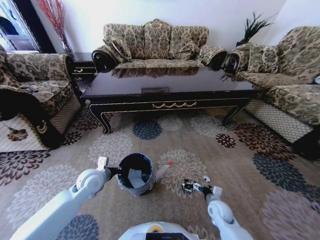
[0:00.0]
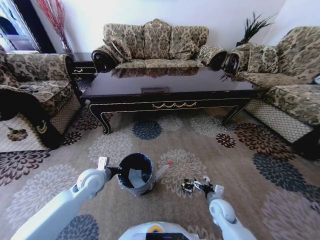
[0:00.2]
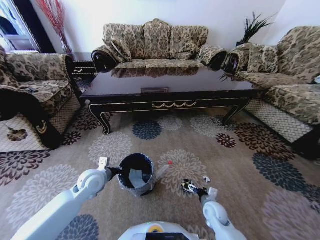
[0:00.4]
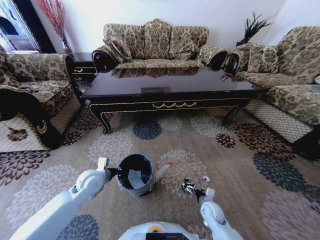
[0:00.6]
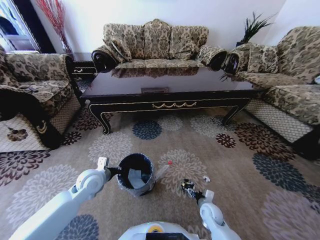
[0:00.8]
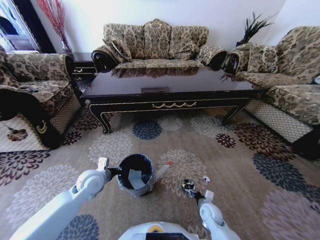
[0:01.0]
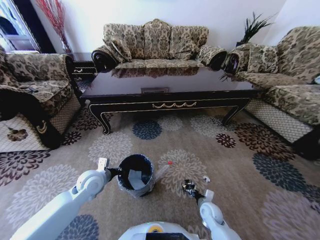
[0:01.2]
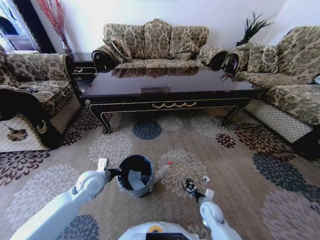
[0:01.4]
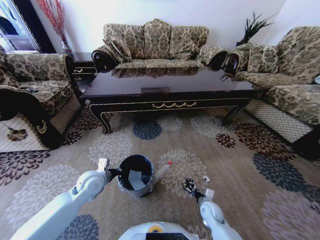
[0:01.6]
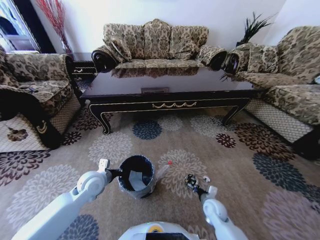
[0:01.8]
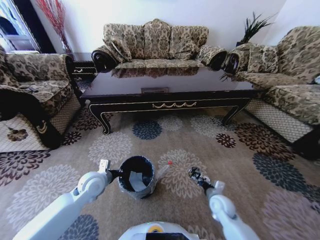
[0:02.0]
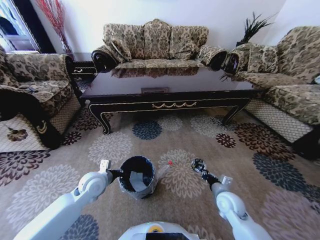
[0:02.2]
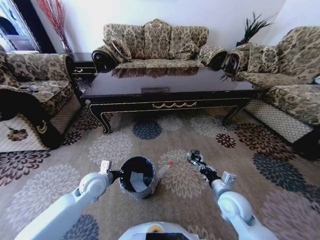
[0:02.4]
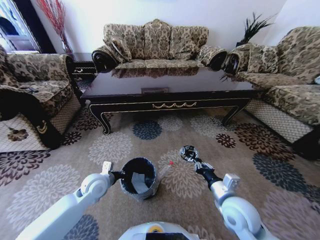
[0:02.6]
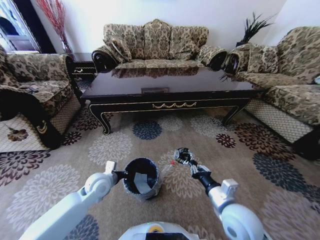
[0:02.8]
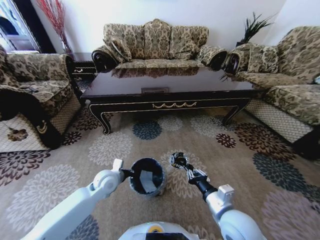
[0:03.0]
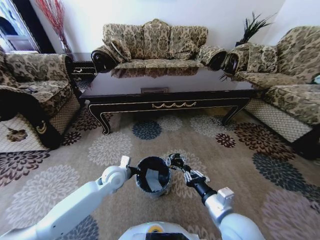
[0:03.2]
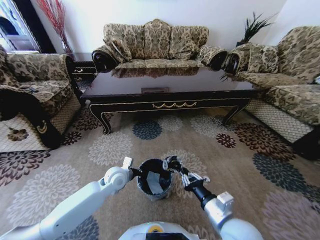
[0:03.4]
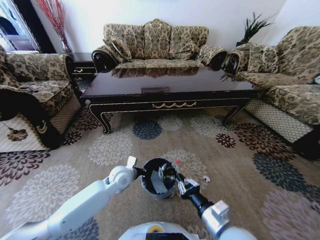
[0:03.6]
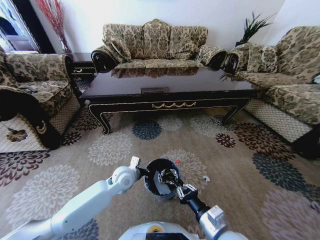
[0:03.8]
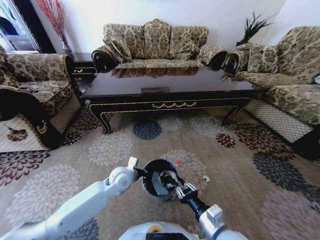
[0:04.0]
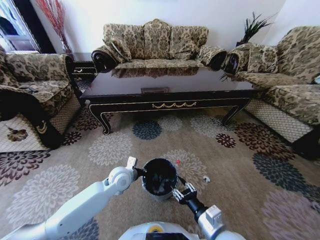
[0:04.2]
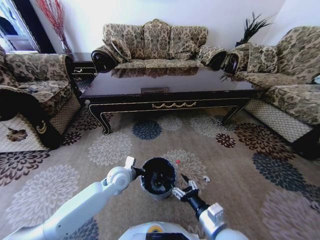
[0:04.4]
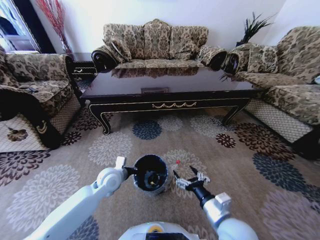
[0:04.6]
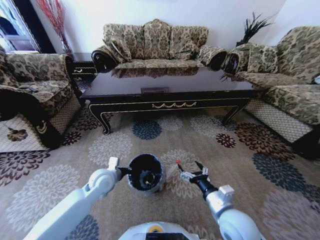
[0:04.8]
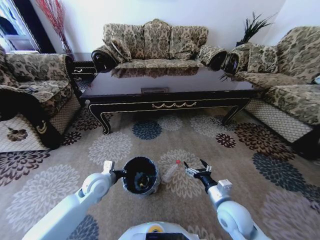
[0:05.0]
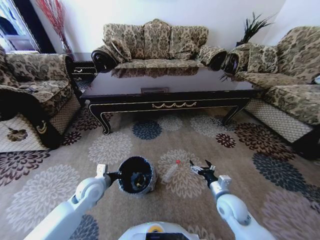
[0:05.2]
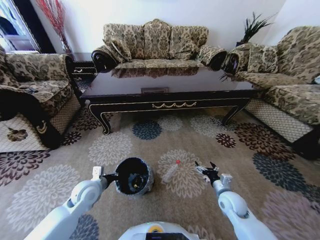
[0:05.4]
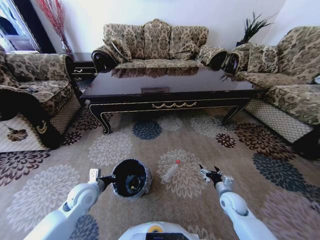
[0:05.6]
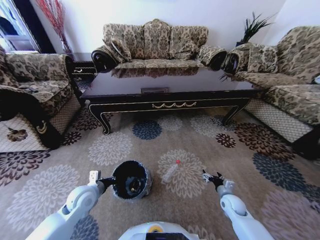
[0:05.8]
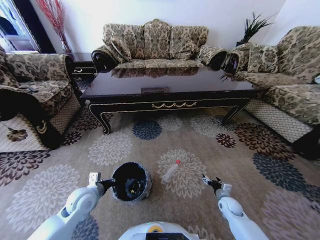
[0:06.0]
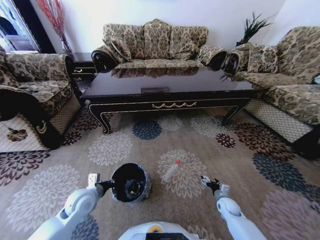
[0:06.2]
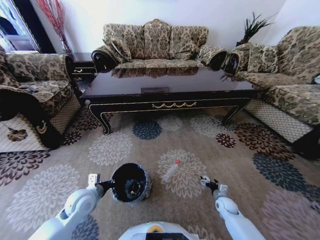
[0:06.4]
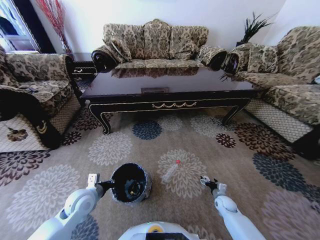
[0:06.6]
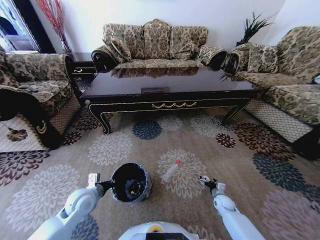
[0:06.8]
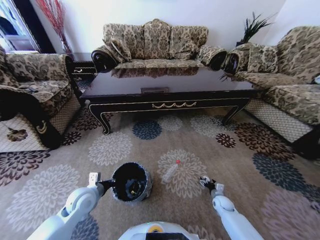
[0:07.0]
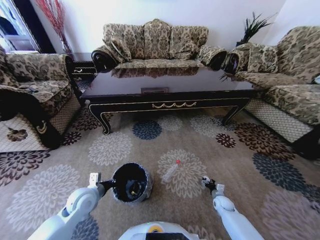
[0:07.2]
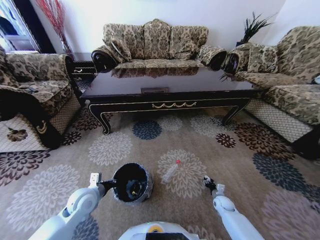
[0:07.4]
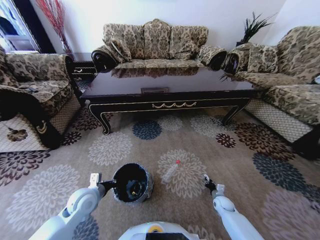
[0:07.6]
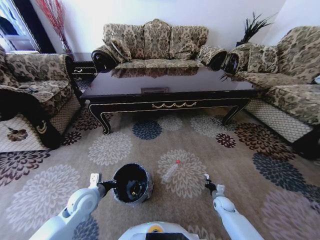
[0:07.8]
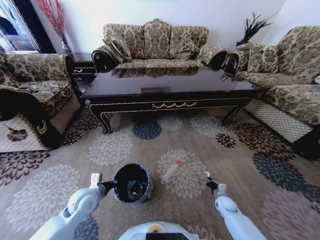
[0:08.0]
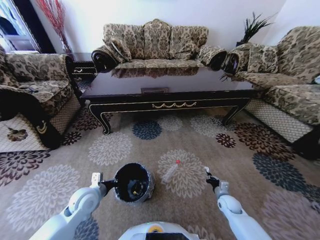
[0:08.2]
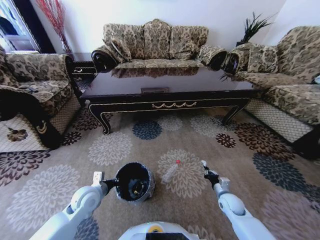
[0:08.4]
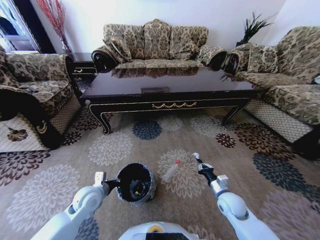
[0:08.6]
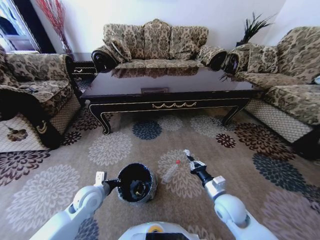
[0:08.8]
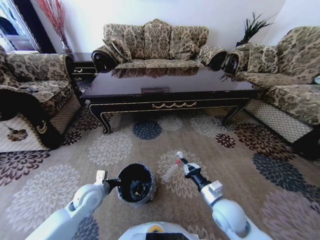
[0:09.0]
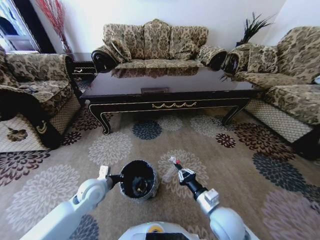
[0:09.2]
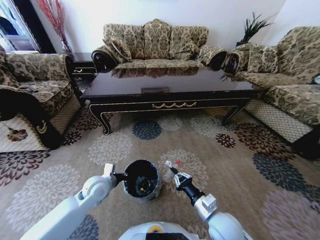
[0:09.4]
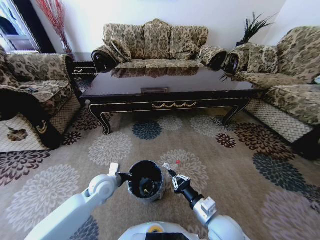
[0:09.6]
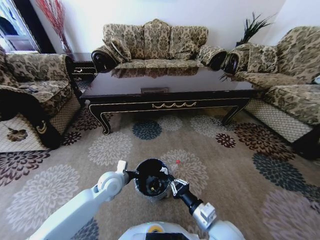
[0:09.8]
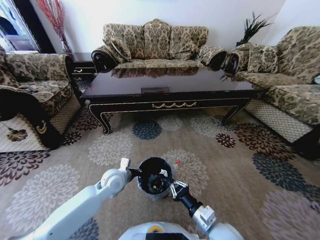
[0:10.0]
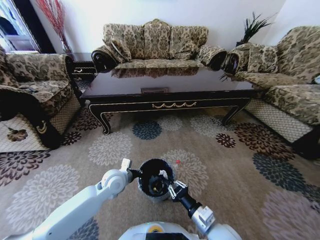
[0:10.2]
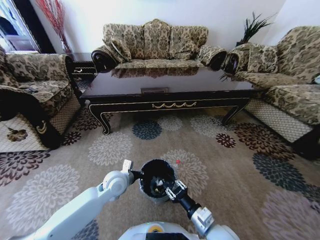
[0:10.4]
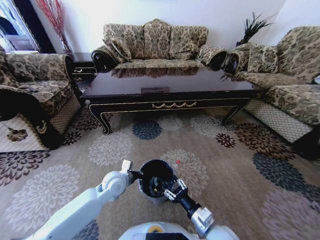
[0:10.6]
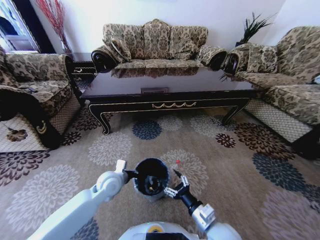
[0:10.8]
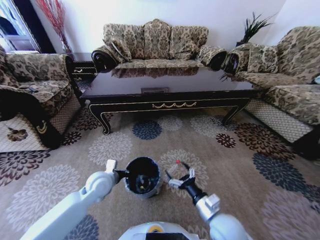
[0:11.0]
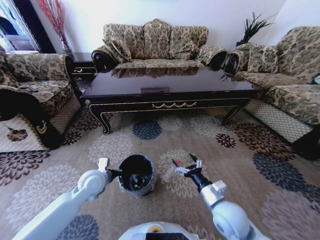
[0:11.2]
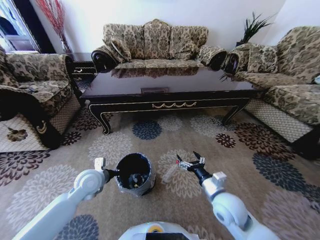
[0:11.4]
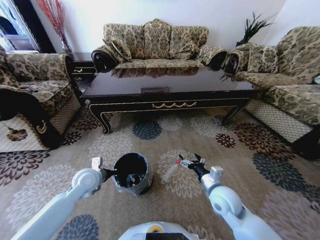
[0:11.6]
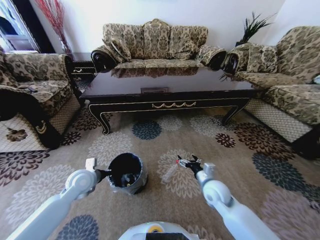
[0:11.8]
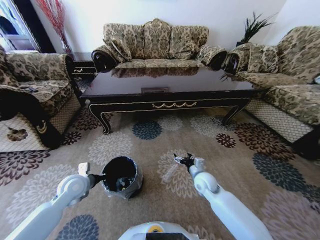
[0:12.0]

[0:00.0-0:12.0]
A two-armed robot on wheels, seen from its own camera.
Task of the whole recording: Move to the front of the table and pick up the trash from the floor, then place it into the trash bin.
0:00.0 to 0:01.6: The right gripper closes up.
0:01.6 to 0:03.0: The left gripper is displaced to the right by some 5 cm. The right gripper heads upward, covering roughly 25 cm.
0:03.0 to 0:04.4: The left gripper moves to the right, roughly 5 cm. The right gripper changes place by some 5 cm, and opens its fingers.
0:04.4 to 0:06.0: The left gripper heads to the left and backward, covering about 15 cm, while the right gripper shifts approximately 30 cm downward, to the right and forward.
0:06.0 to 0:07.6: The right gripper travels downward by about 5 cm, and closes.
0:07.6 to 0:09.0: The right gripper travels upward and to the left by roughly 30 cm.
0:09.0 to 0:10.4: The left gripper is displaced to the right by some 10 cm, while the right gripper heads backward, covering approximately 5 cm, and opens up.
0:10.4 to 0:12.0: The left gripper shifts roughly 15 cm to the left. The right gripper shifts about 20 cm forward, and opens its fingers.

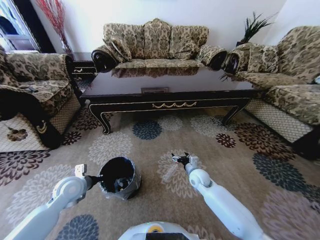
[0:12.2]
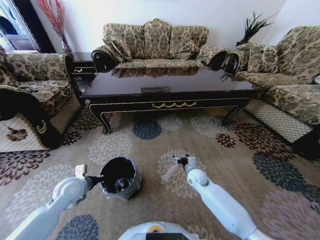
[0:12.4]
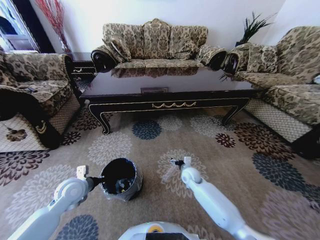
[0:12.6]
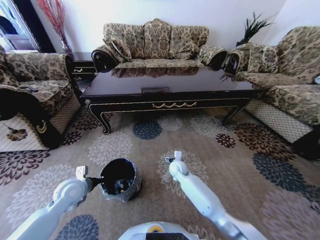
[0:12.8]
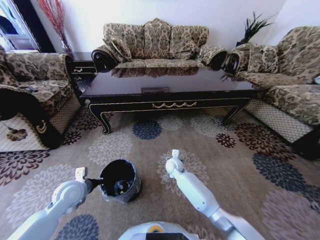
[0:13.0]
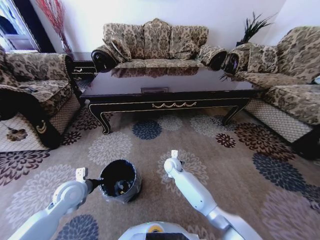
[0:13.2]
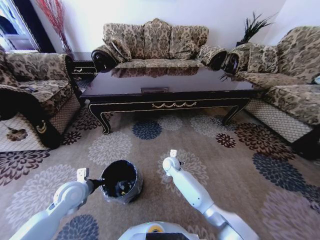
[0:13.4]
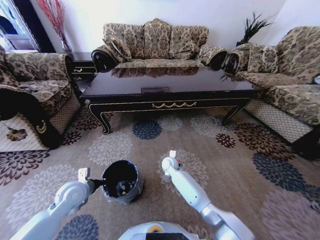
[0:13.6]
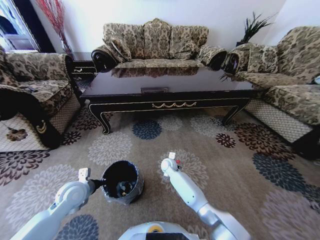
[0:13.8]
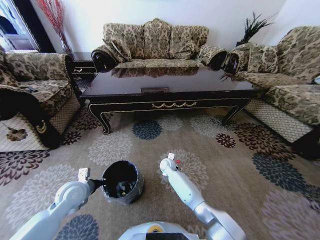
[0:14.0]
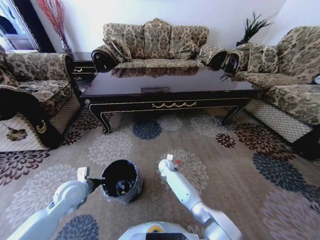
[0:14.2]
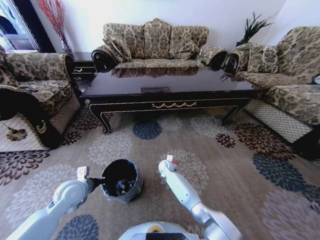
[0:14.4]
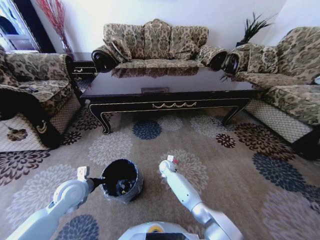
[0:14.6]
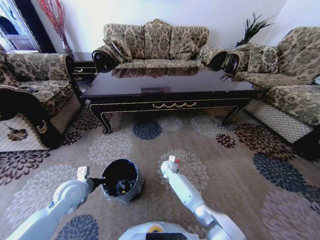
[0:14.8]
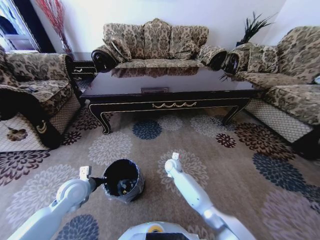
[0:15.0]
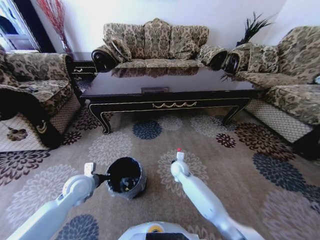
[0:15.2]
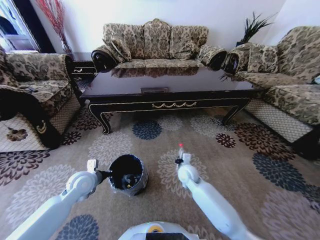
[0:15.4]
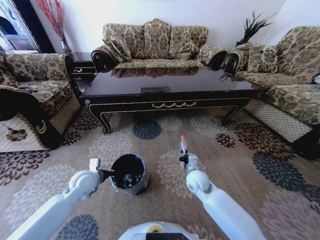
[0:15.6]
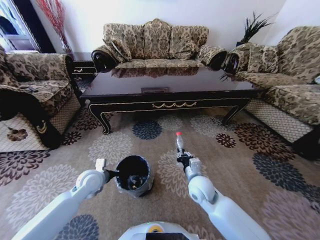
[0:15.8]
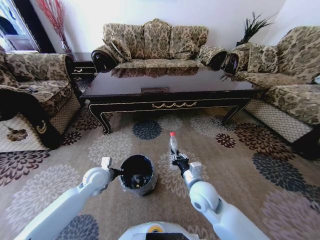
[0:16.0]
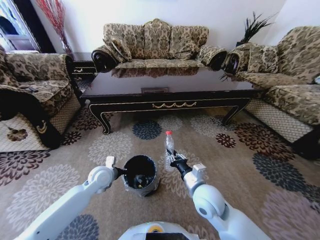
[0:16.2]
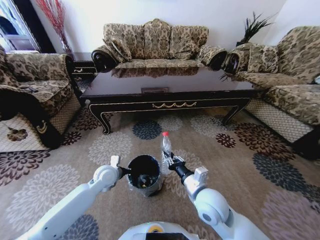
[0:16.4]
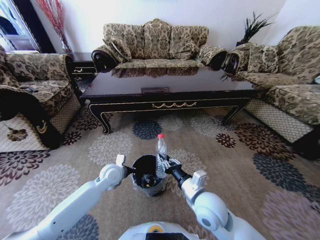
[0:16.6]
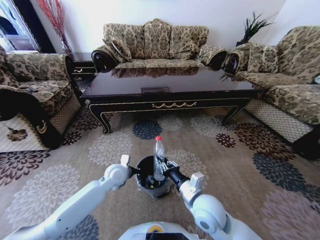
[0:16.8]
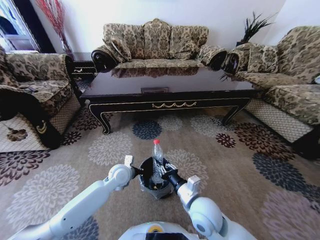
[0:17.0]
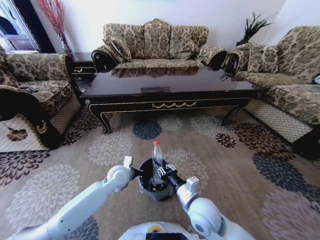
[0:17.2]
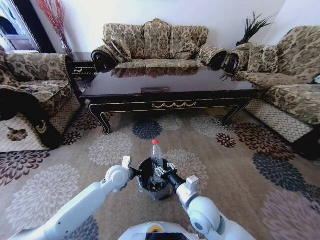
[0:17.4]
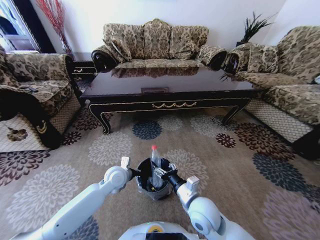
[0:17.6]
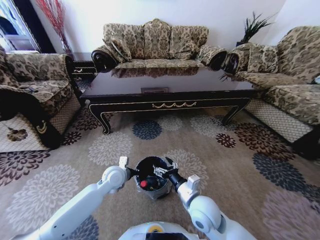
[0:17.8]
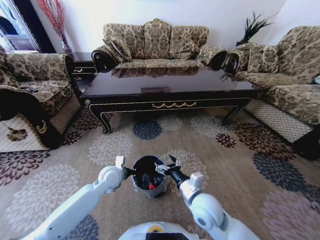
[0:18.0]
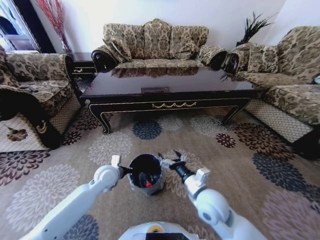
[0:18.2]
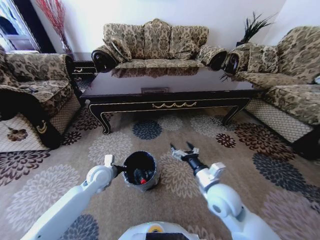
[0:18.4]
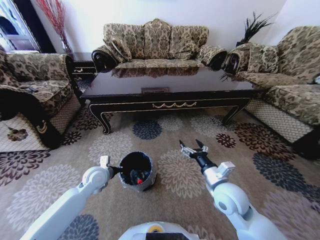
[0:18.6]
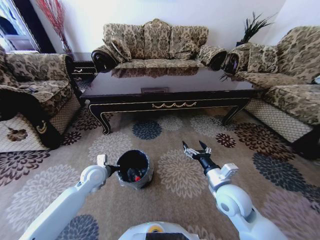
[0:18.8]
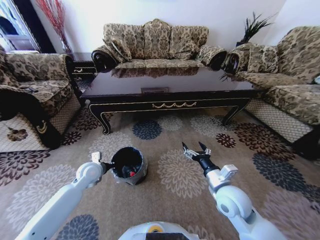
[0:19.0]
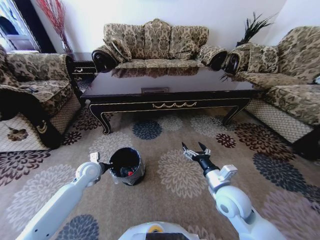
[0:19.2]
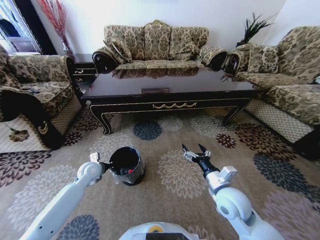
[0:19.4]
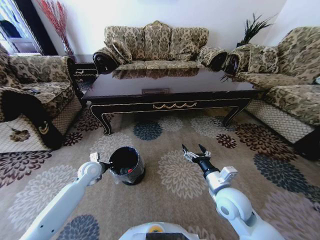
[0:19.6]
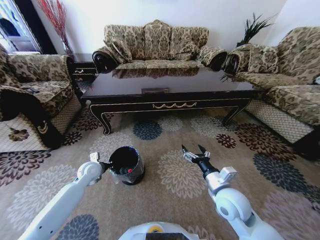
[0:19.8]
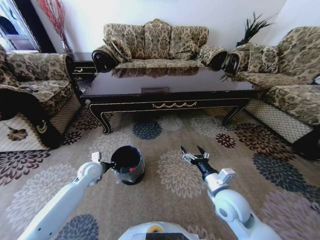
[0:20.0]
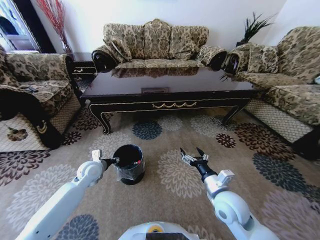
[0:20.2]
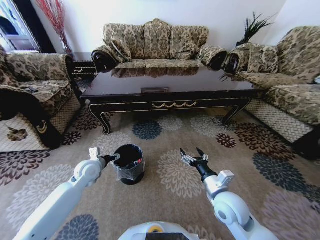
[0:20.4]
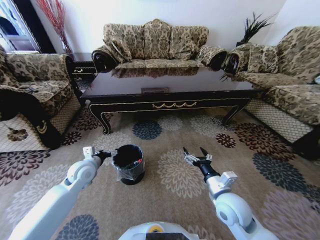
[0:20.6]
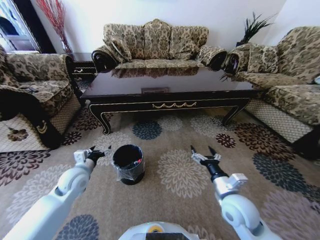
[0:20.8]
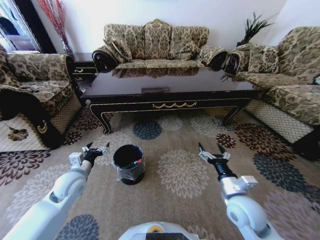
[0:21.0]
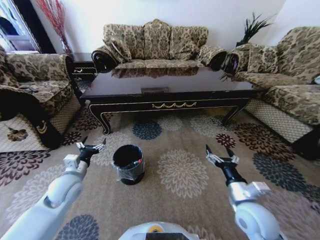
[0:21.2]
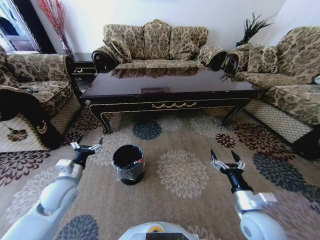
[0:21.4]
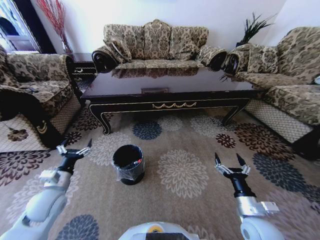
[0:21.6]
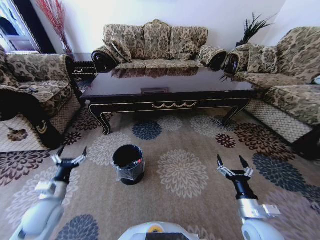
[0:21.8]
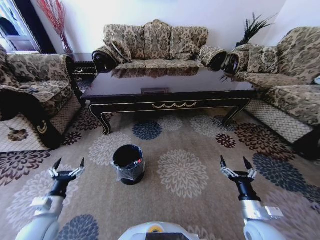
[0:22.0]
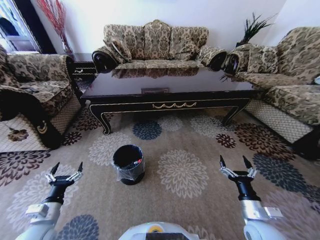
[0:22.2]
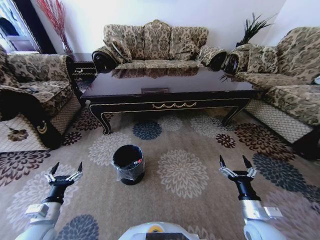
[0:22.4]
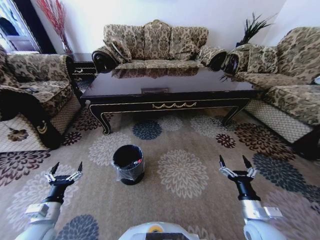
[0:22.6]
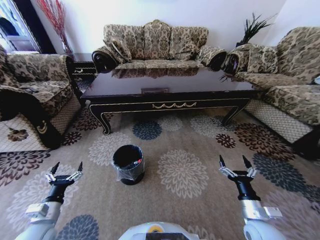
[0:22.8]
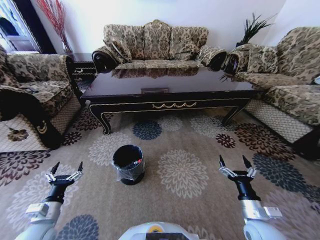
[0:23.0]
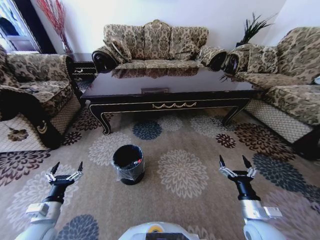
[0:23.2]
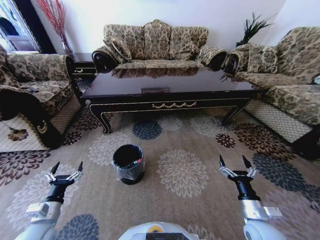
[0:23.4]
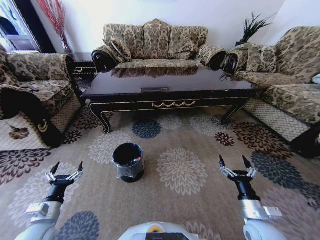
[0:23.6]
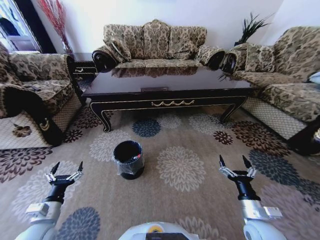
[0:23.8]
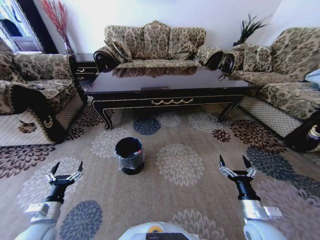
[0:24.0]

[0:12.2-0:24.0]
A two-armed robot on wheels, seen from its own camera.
Task of the whole recording: Move to the front of the table and pick up the trash from the floor, then place it into the trash bin.
0:12.2 to 0:13.6: The right gripper moves to the left and forward, roughly 15 cm.
0:13.6 to 0:15.2: The right gripper moves roughly 5 cm, and closes.
0:15.2 to 0:16.6: The right gripper shifts about 25 cm backward and upward. Meanwhile the left gripper shifts some 10 cm to the right and forward.
0:16.6 to 0:18.2: The right gripper opens.
0:18.2 to 0:19.6: The right gripper moves to the right, approximately 5 cm. Meanwhile the left gripper is displaced to the left by about 10 cm.
0:19.6 to 0:21.0: The left gripper heads backward and upward, covering roughly 10 cm, and opens its fingers.
0:21.0 to 0:22.6: The right gripper goes roughly 10 cm to the right, downward and backward. The left gripper goes about 20 cm backward, downward and to the left.
